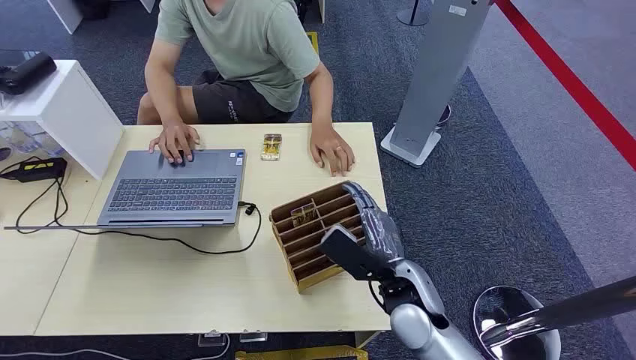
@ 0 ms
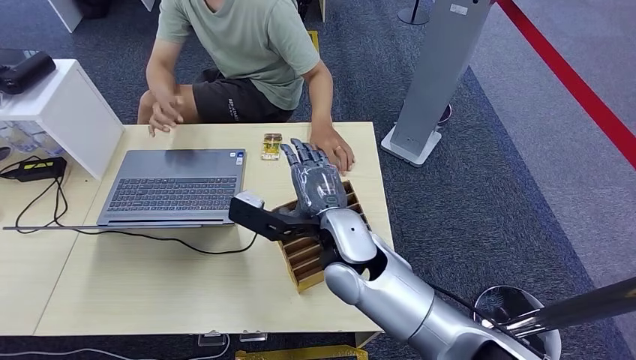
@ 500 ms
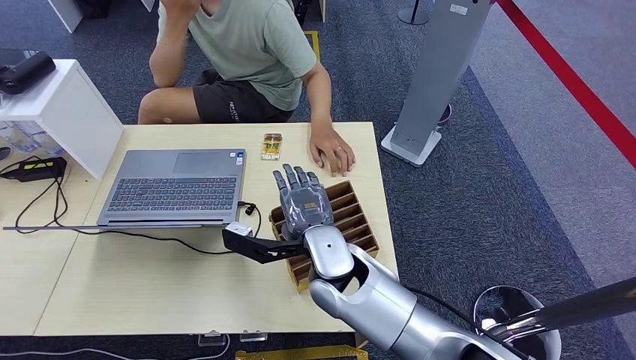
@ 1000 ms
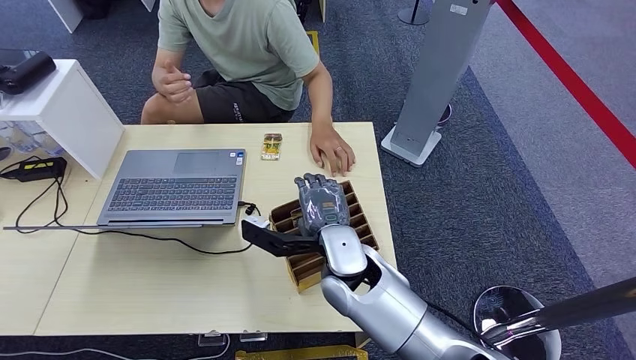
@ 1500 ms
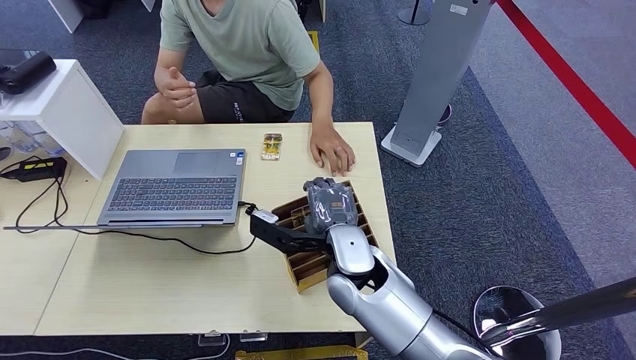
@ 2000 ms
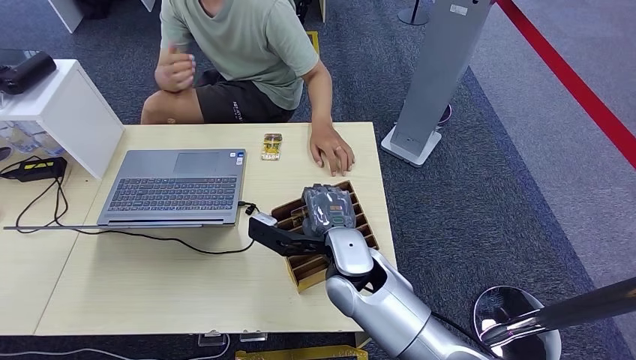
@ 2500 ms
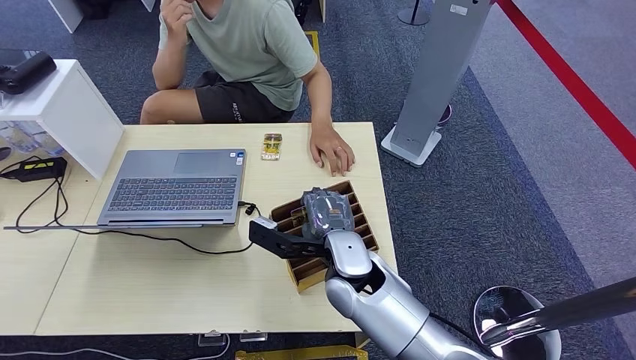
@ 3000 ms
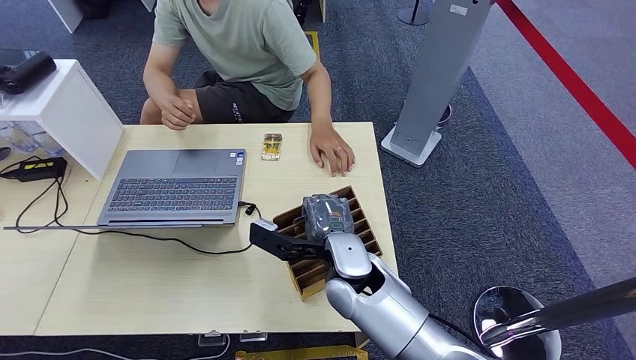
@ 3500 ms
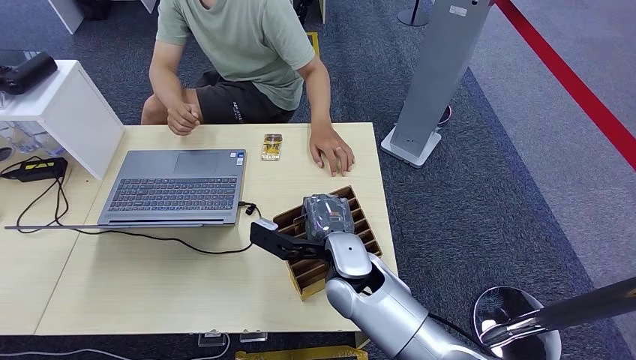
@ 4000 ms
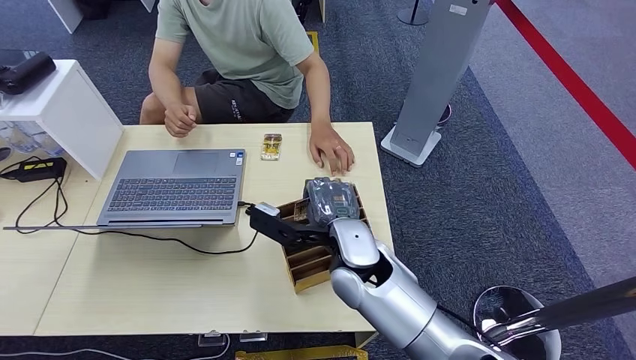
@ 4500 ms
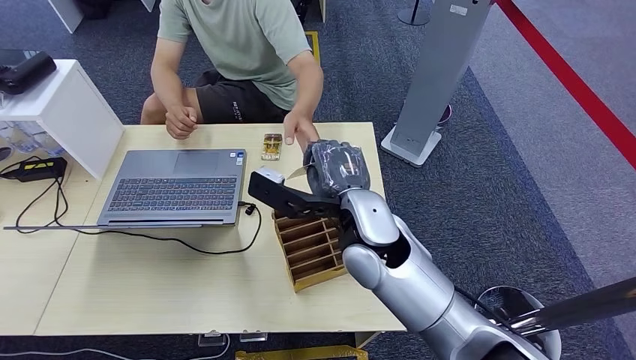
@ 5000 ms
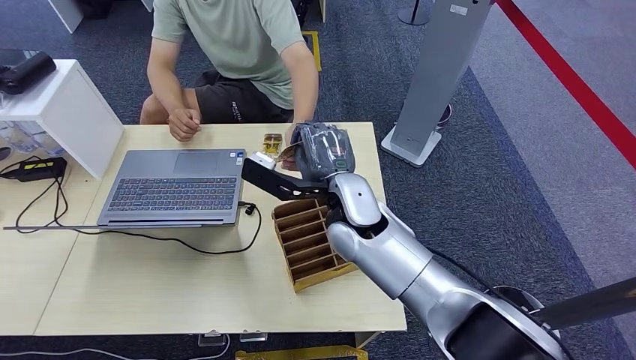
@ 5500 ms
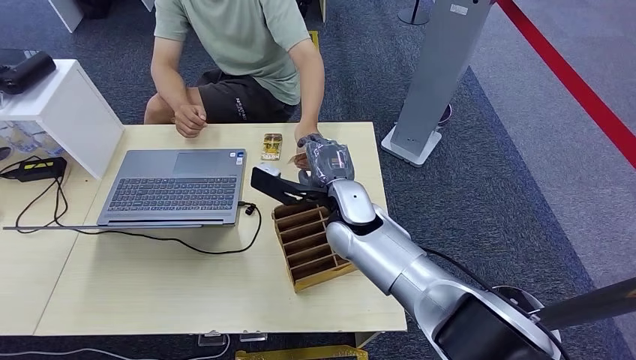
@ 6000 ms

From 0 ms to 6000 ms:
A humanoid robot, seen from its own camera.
Step, from 0 ms to 4000 ms: Pick up the room card from the card holder.
Step, from 4500 ms to 6000 ms: Hand the room card to the target.
From 2000 ms to 4000 ms: The hands move only a little.
From 4000 ms to 6000 ms: The right hand goes some 5 cm forward.
